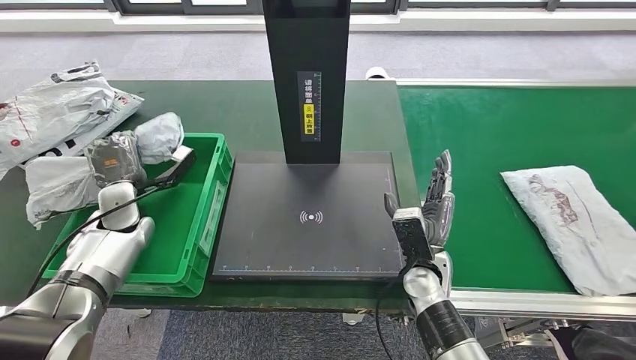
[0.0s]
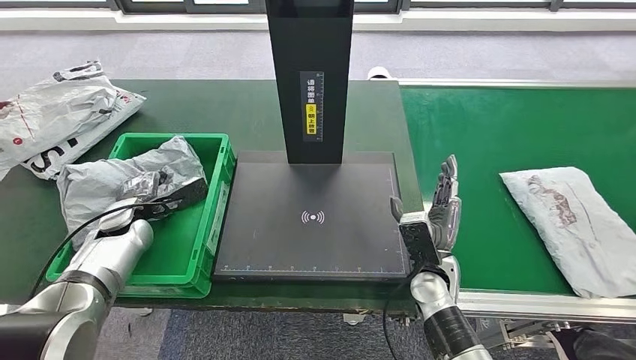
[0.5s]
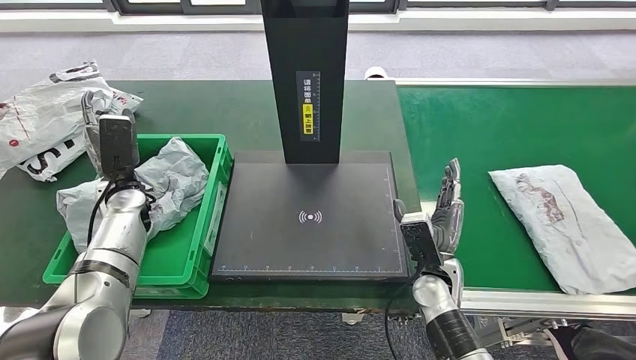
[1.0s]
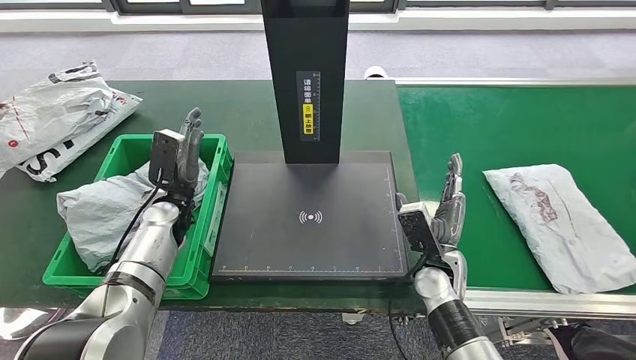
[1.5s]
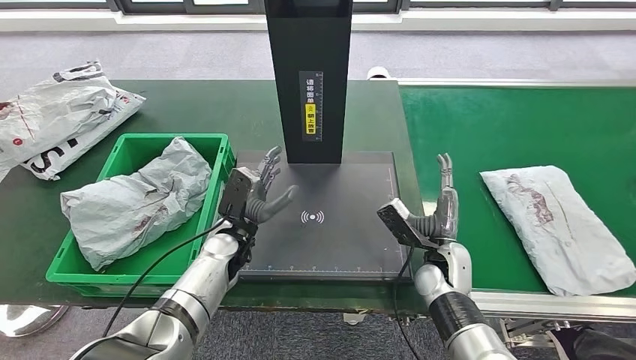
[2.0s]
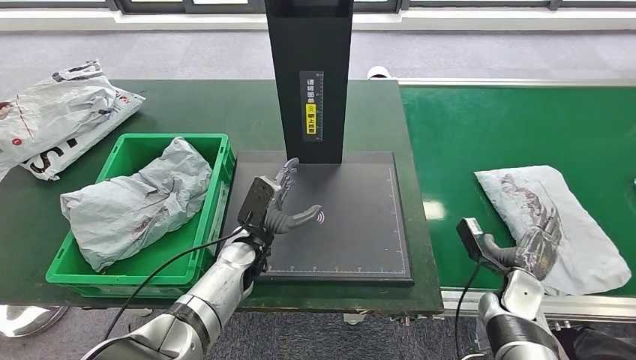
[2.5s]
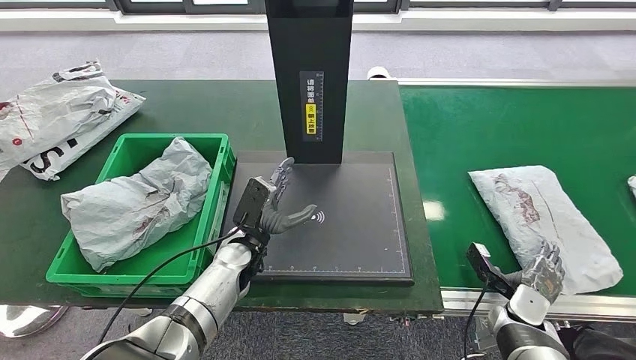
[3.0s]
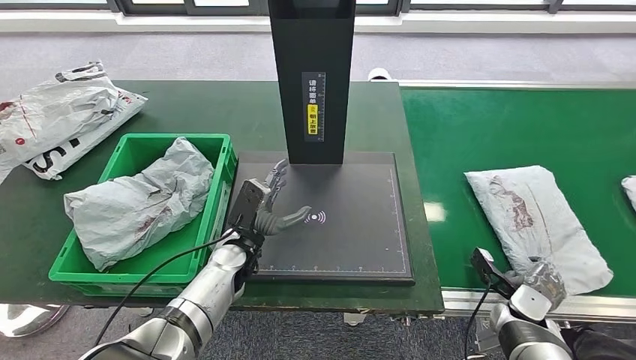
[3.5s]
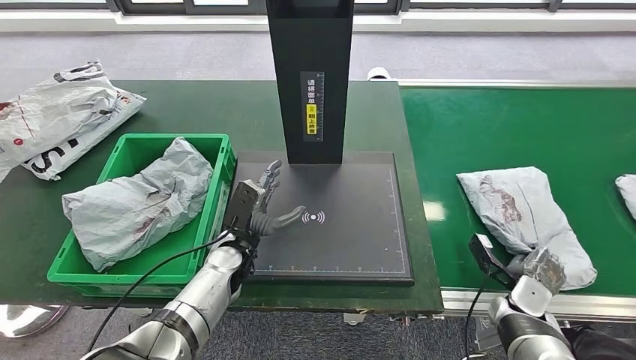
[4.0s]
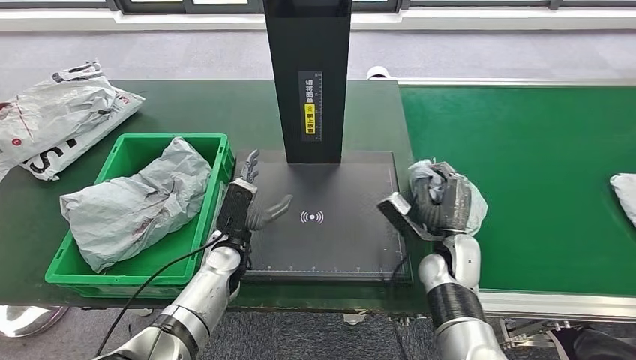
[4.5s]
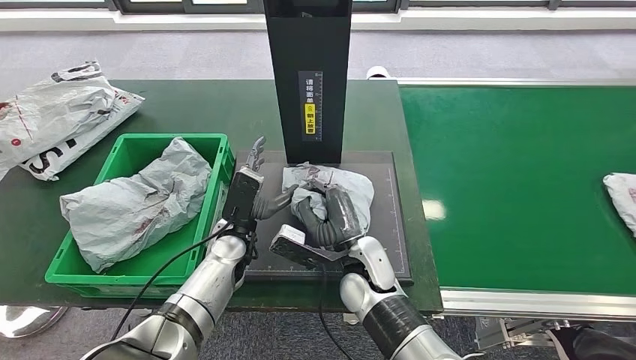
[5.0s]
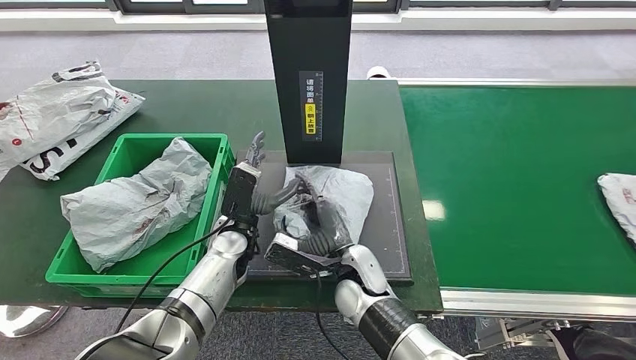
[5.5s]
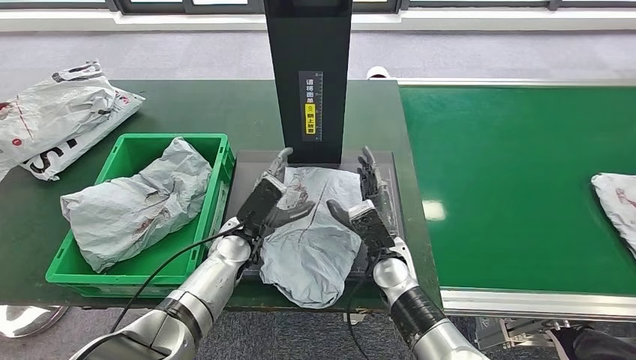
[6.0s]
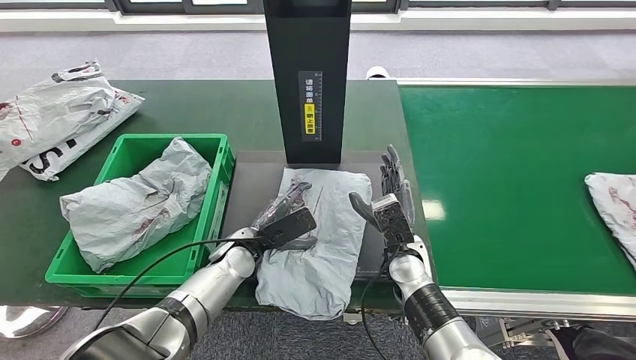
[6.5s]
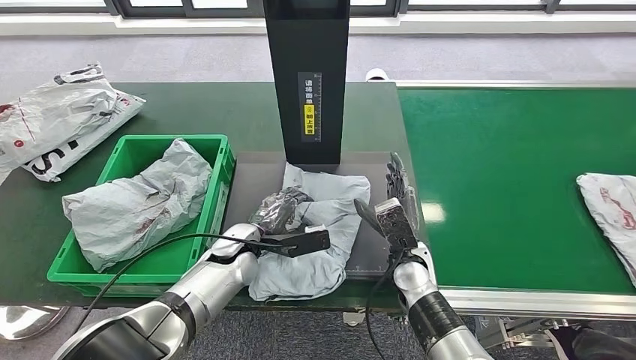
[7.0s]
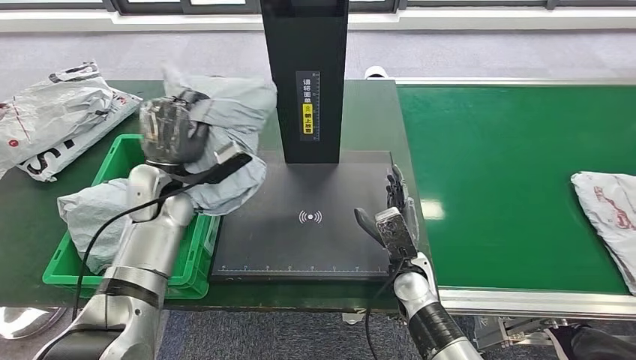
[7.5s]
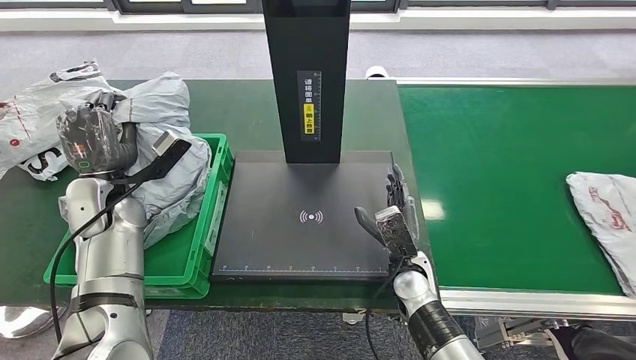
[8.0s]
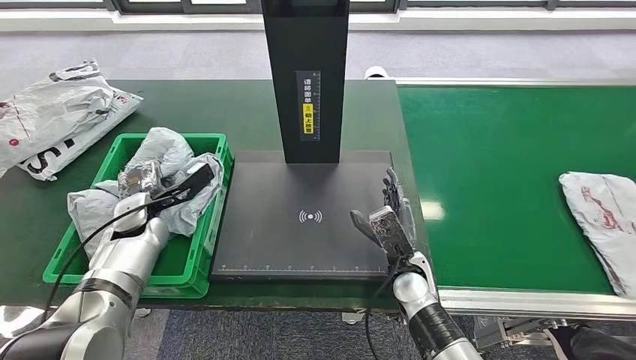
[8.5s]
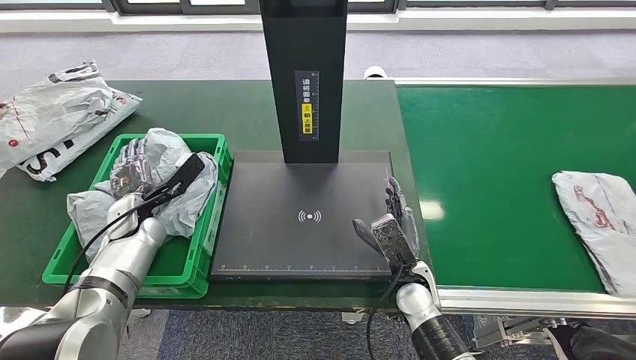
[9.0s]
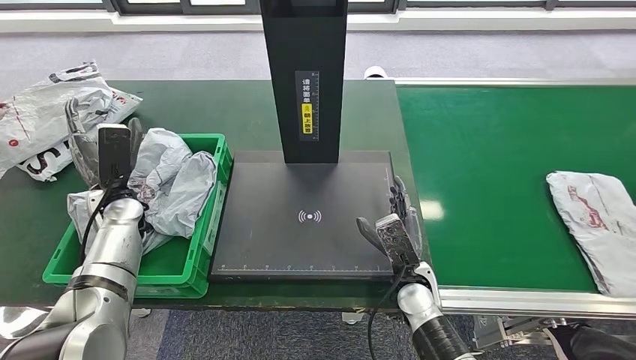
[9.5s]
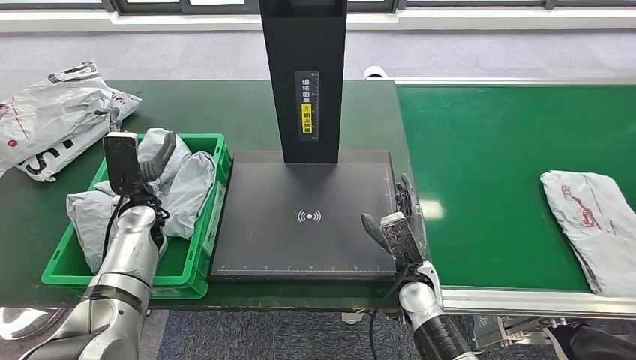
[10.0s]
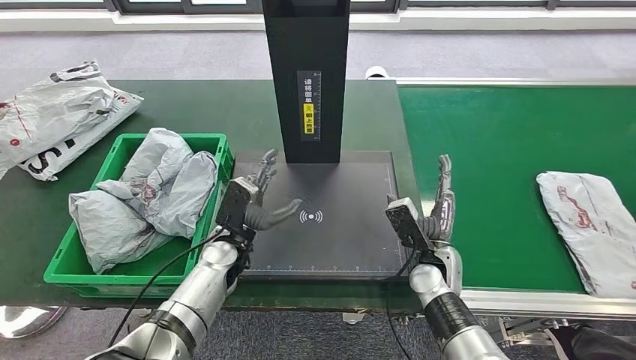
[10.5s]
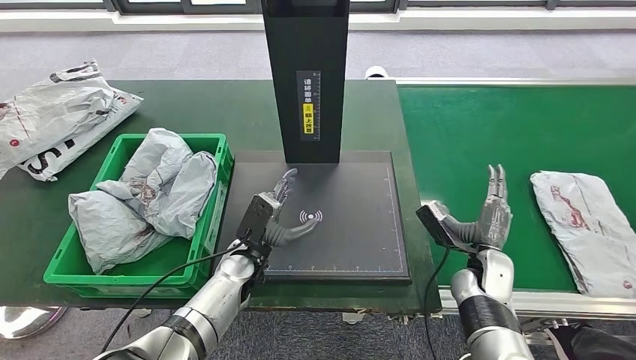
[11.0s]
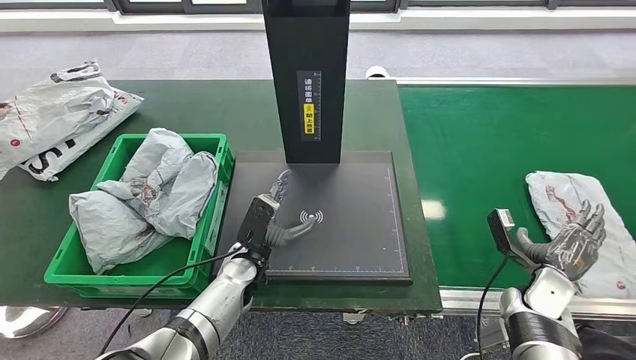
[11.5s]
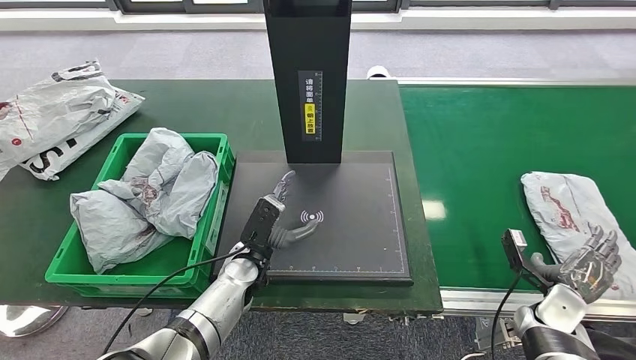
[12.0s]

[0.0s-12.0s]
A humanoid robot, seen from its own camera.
Step, 0.0s to 1.0s: Put the parcel inside the courier box.
Step, 1.5s to 4.5s: Pick up the parcel from the conveyor belt.
Step, 5.0s to 6.0s: Place the parcel onto the inbound machine.
Step, 6.5s to 8.0s: Pick up the parcel from the inbound machine.
Step, 8.5s to 10.0s: Place the parcel into the delivery box.
2.0s to 4.0s: The right hand shifts roughly 15 cm to the right and downward.

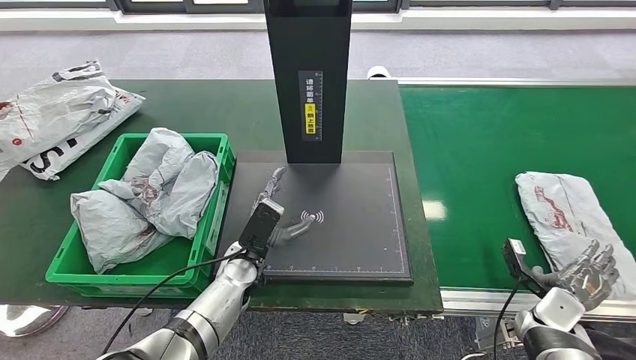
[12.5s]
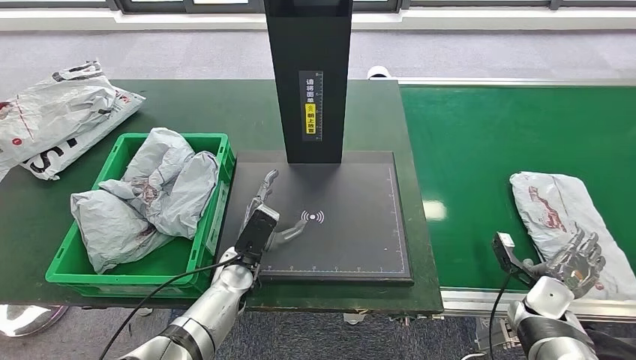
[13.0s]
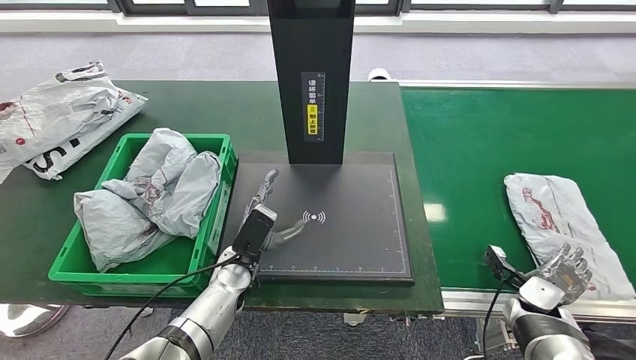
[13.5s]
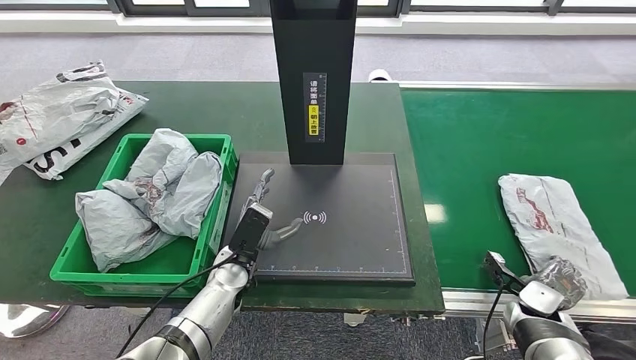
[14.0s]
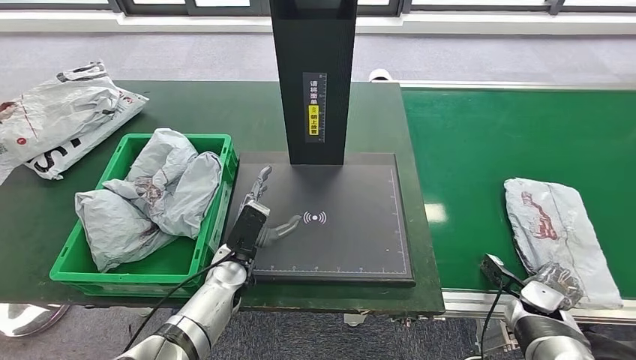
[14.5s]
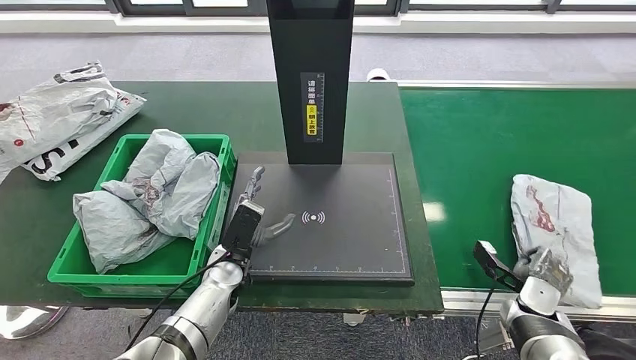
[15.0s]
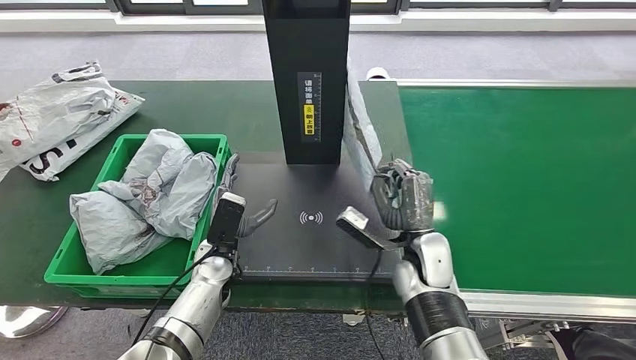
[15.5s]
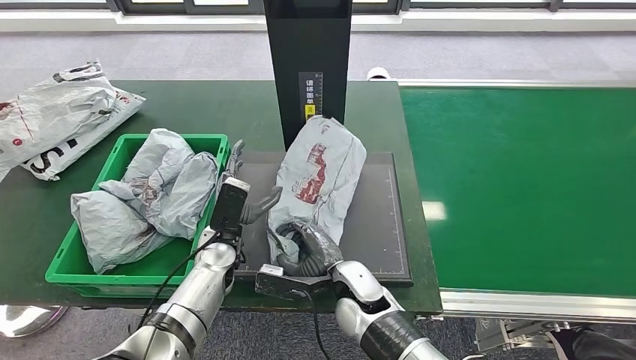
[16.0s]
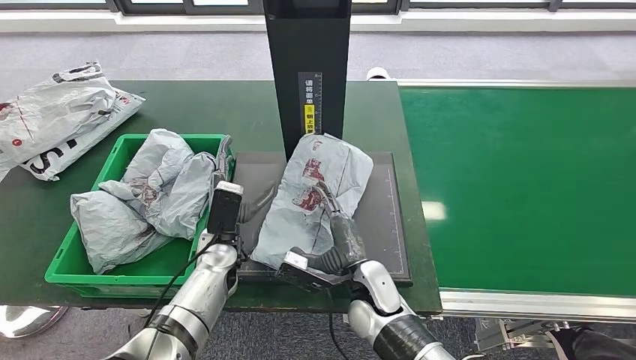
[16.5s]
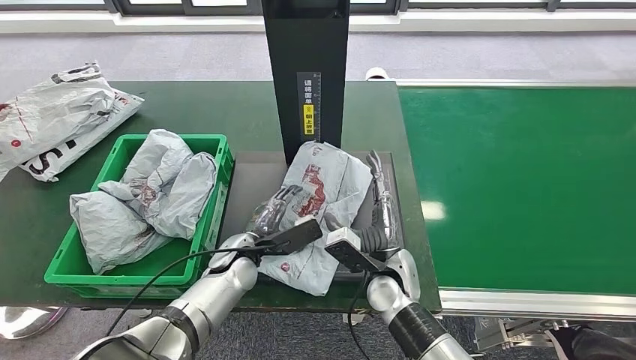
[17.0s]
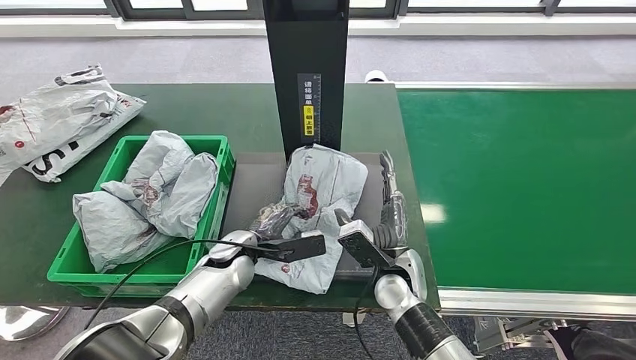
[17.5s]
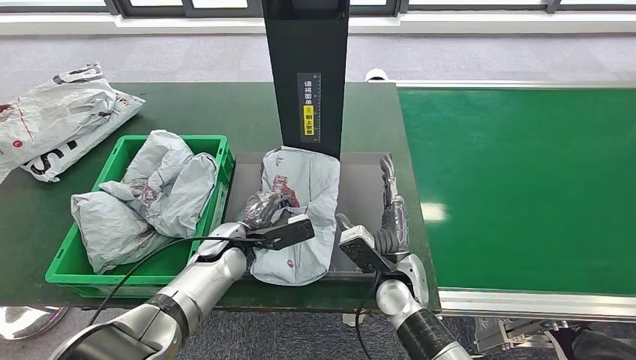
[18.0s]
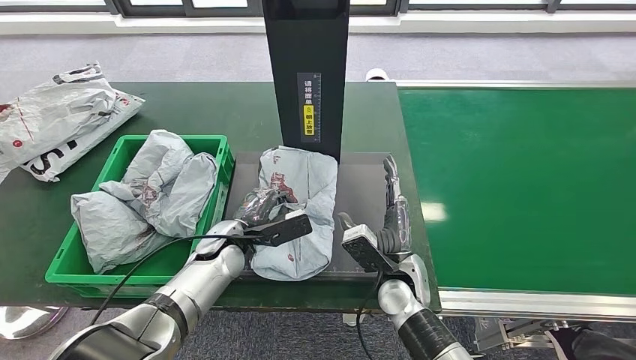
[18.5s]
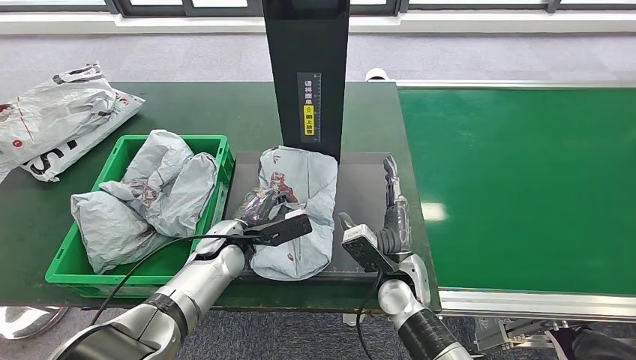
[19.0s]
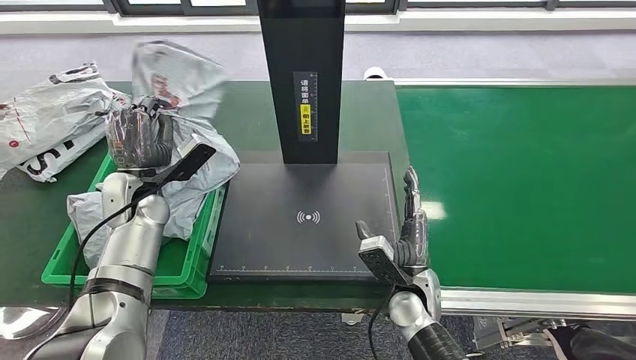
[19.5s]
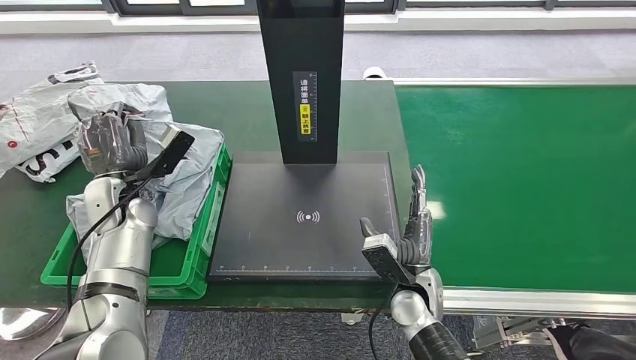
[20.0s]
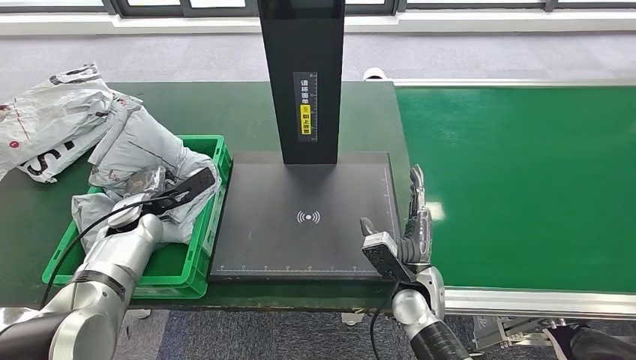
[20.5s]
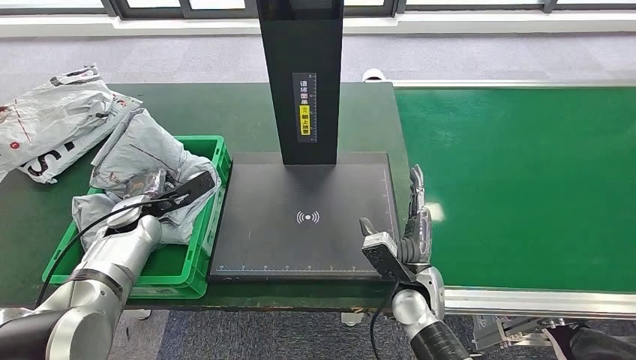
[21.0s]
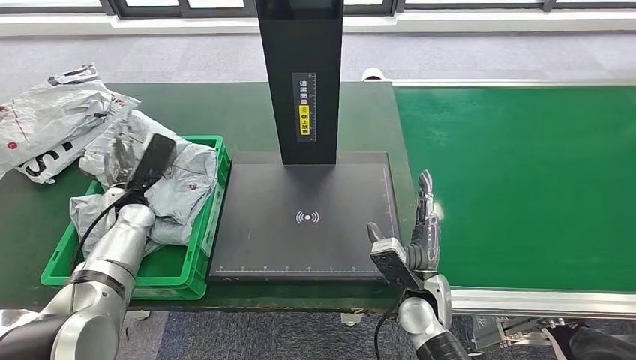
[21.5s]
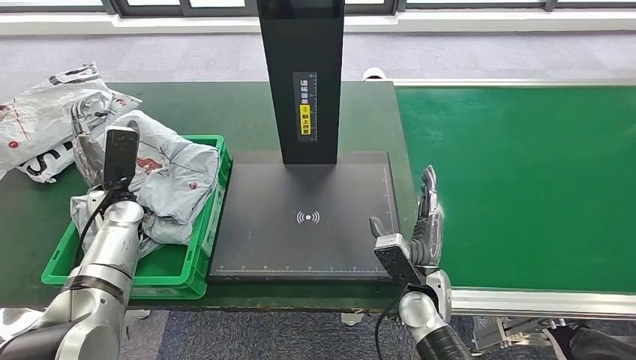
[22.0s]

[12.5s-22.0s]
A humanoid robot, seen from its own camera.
Step, 12.5s to 15.0s: Pick up the parcel from the conveyor belt.
Step, 15.5s to 16.5s: Place the parcel onto the inbound machine.
Step, 17.0s to 19.5s: Pick up the parcel from the inbound machine.
Step, 20.0s to 22.0s: Place the parcel into the delivery box.
